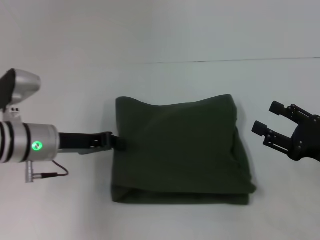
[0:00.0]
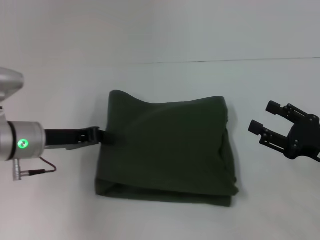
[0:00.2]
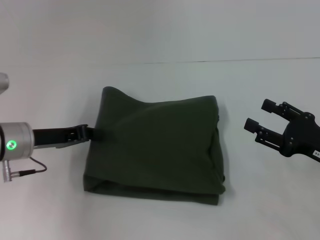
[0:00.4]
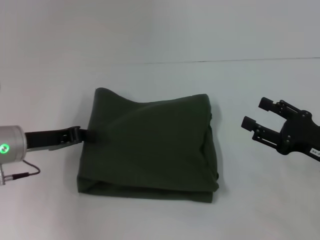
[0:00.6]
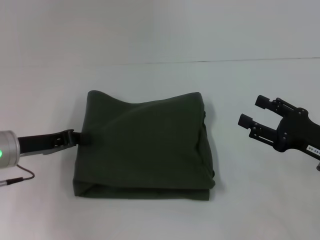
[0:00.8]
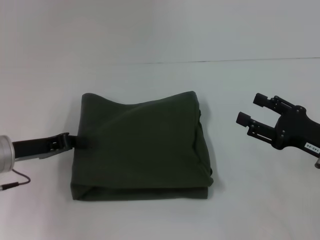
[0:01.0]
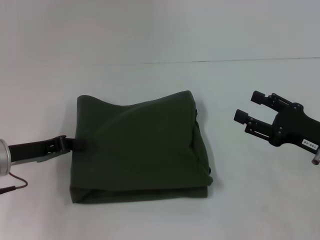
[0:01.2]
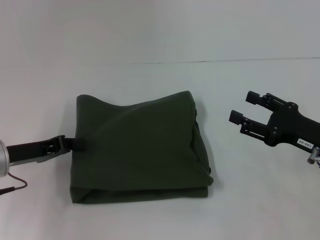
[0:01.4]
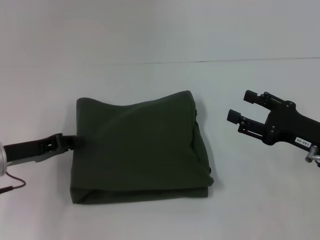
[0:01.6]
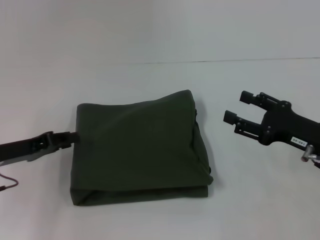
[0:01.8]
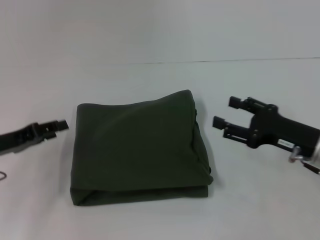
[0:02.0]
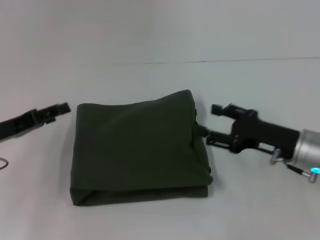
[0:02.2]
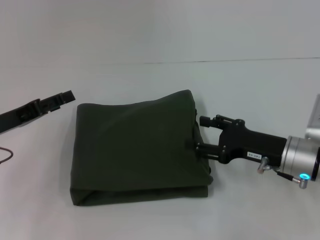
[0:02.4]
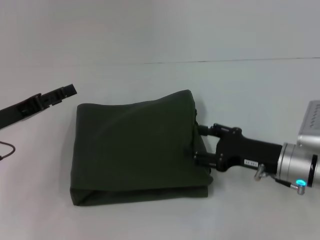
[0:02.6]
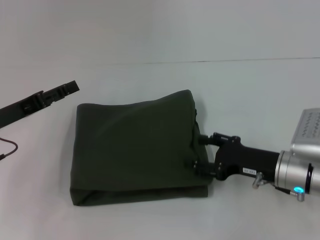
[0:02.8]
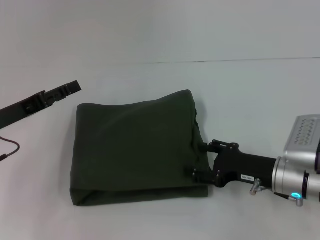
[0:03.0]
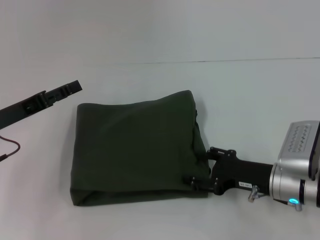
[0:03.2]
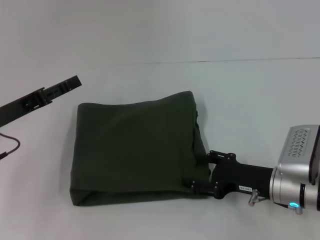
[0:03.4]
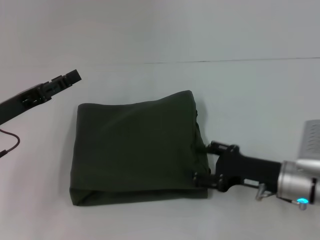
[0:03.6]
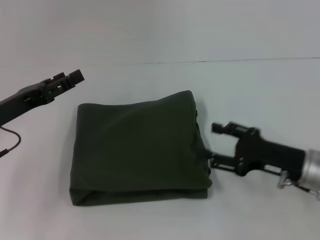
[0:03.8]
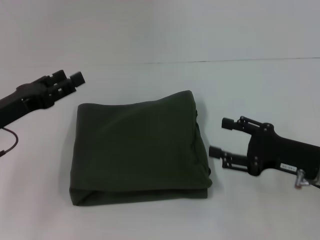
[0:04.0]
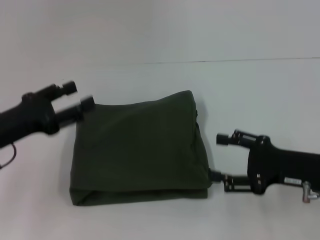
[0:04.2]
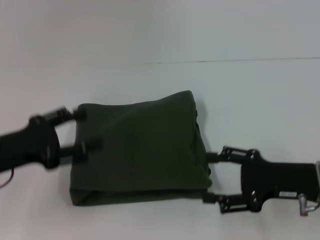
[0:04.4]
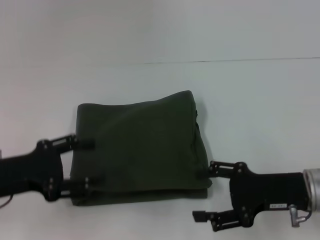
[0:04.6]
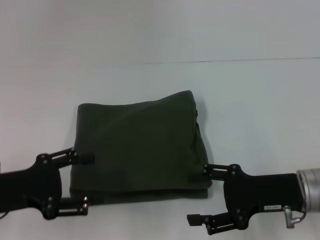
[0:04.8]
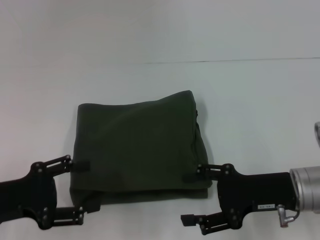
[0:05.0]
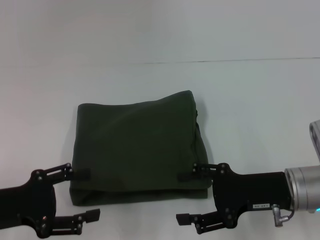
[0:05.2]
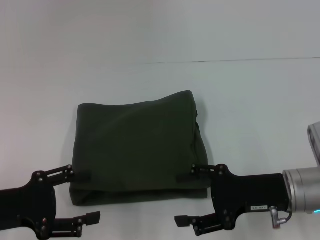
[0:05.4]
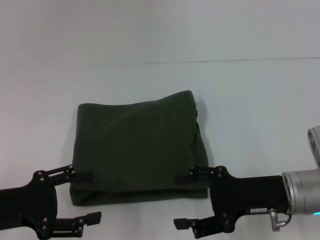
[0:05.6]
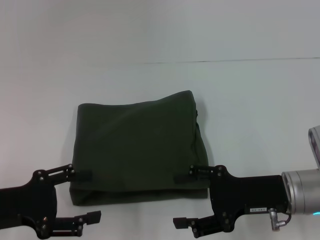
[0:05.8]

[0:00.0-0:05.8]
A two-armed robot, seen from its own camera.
0:00.0 to 0:01.4: The left gripper is displaced to the left by some 5 cm.
0:01.4 to 0:02.8: The right gripper is displaced to the left by some 5 cm. The left gripper opens.
0:02.8 to 0:04.4: The right gripper shifts by some 5 cm, while the left gripper shifts by roughly 5 cm.
